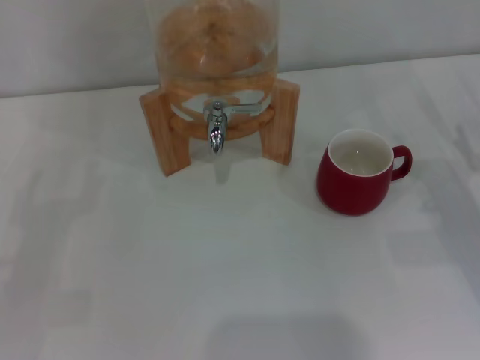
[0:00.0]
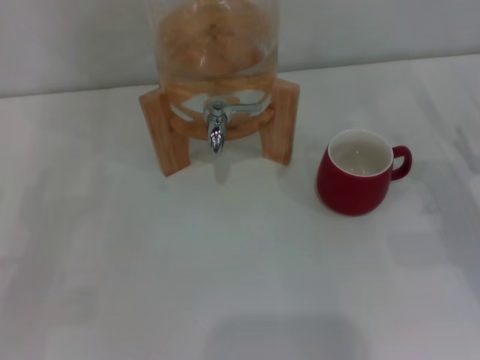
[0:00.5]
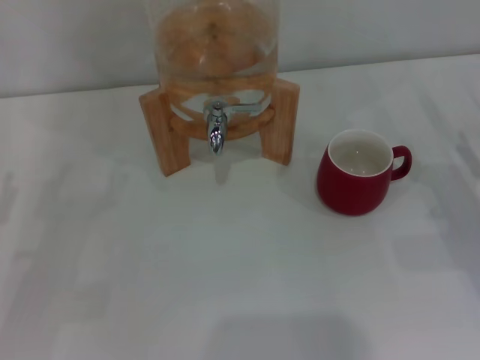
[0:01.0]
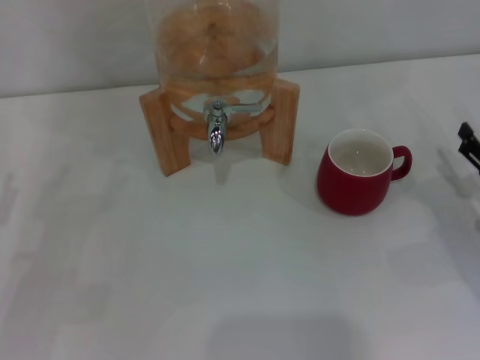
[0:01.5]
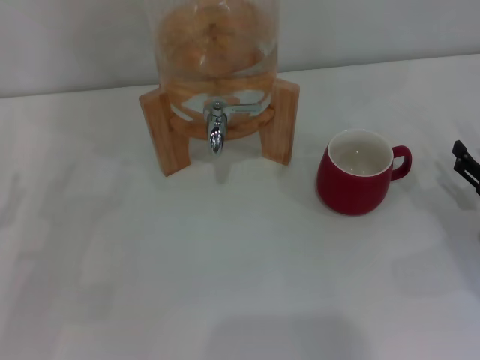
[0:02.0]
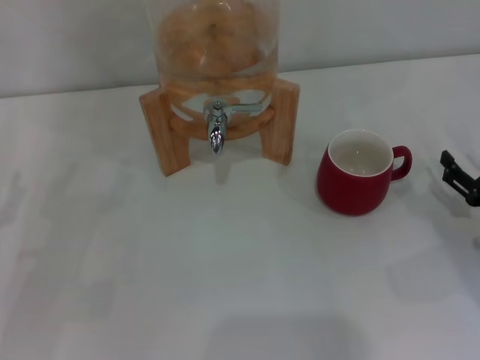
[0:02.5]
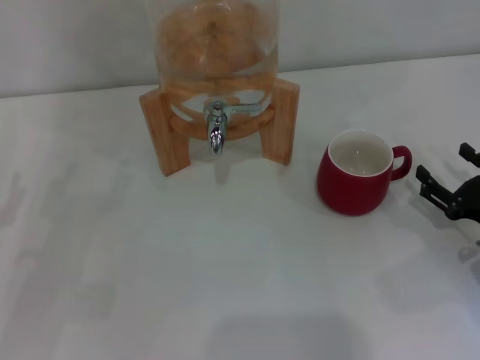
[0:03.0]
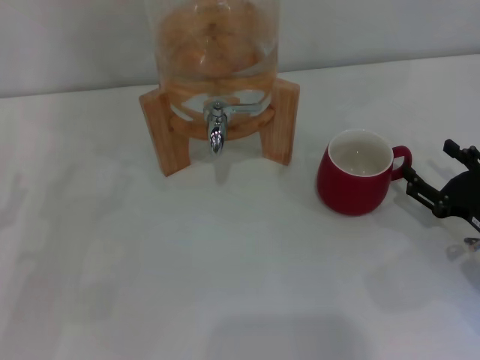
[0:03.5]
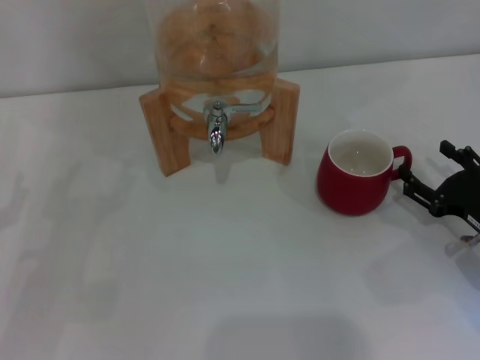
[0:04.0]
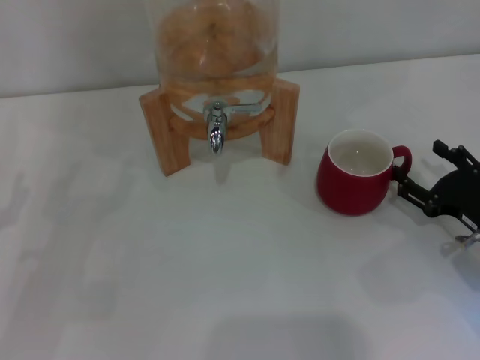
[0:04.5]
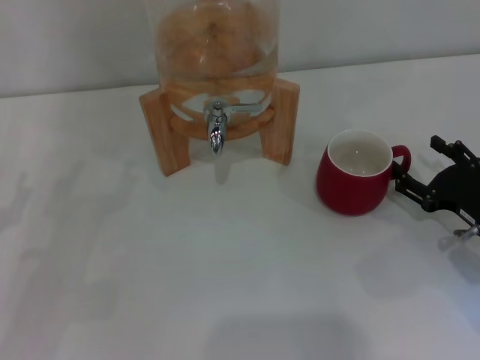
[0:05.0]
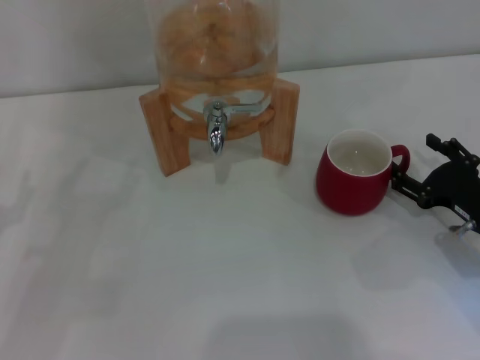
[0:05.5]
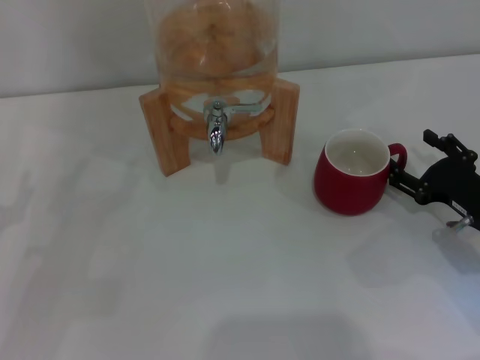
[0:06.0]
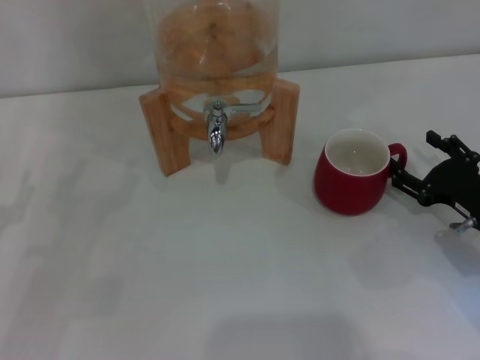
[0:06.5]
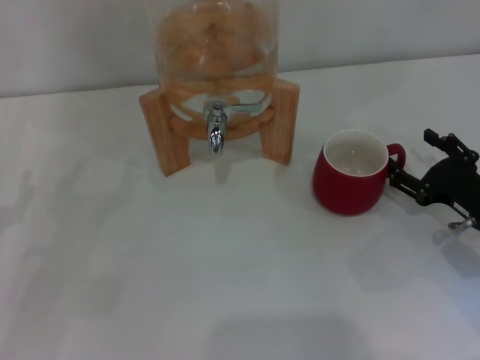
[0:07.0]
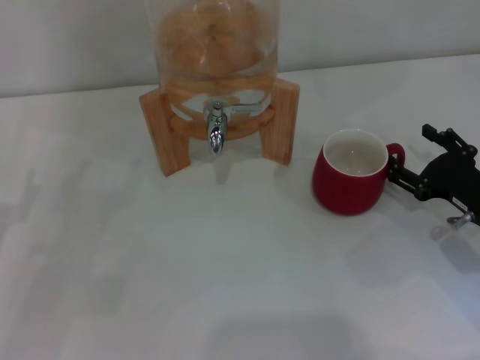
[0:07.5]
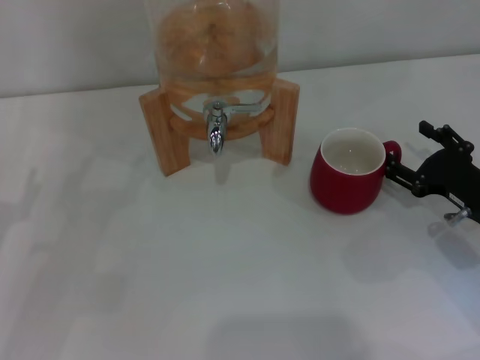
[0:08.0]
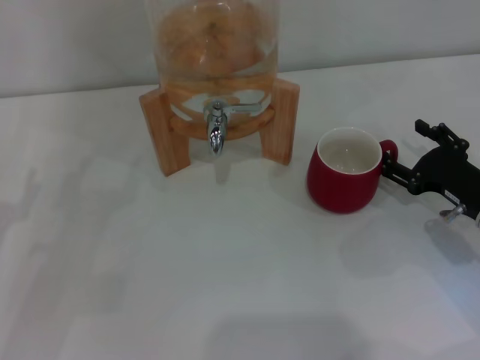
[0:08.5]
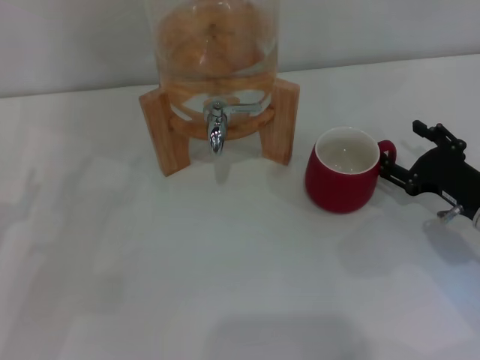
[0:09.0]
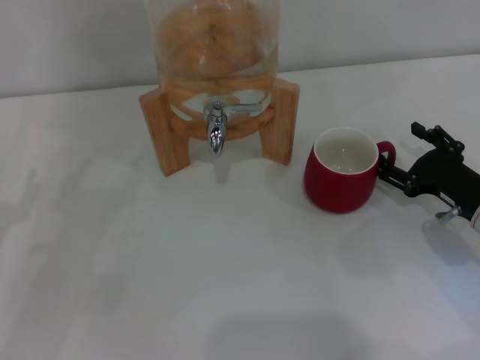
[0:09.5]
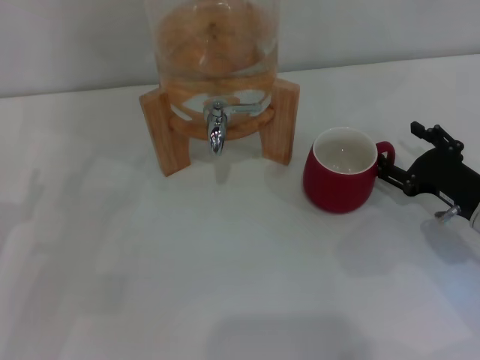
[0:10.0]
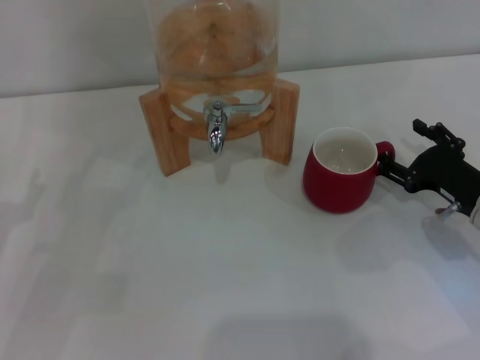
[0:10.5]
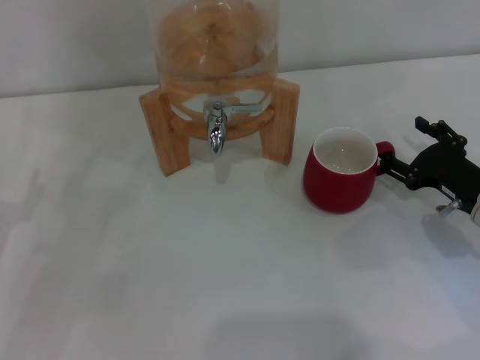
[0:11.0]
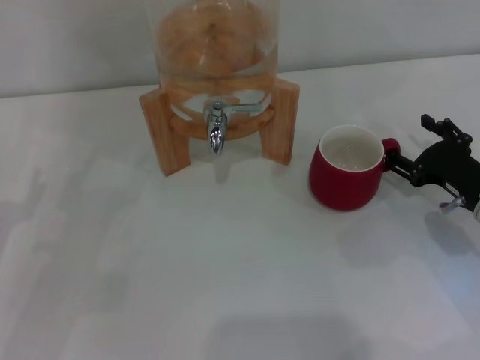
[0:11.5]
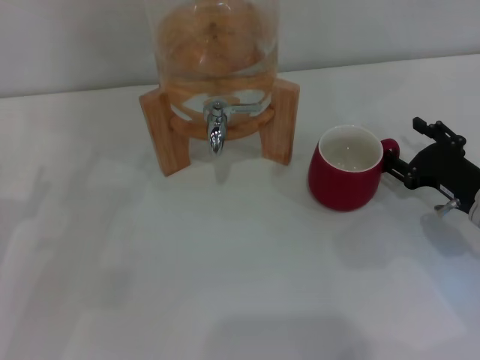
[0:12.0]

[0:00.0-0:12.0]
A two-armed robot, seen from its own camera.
Task of the whole recording: the right gripper pick up the red cup and place it horizontally under the faucet, the left gripper turn on the faucet to fill the cup, and then turn off the faucet.
0:02.0 to 0:06.0: The grippers stay close to where they were, moving slightly.
0:06.0 to 0:08.0: Neither gripper changes place.
0:08.0 to 0:10.0: The two grippers keep their place.
0:10.0 to 0:12.0: Both grippers stay about where they are.

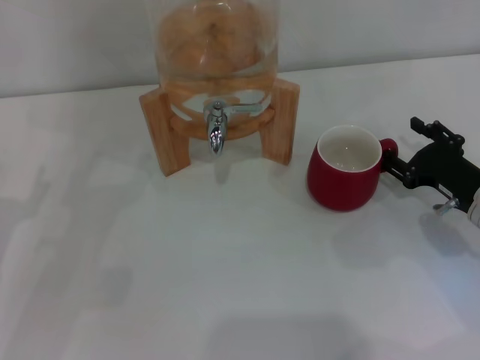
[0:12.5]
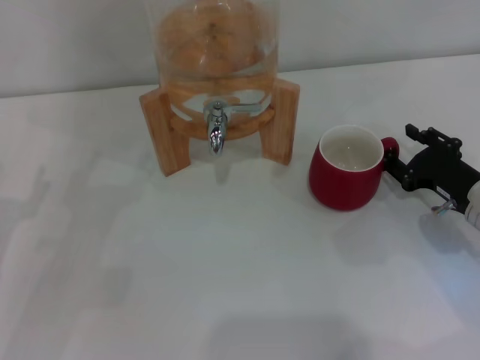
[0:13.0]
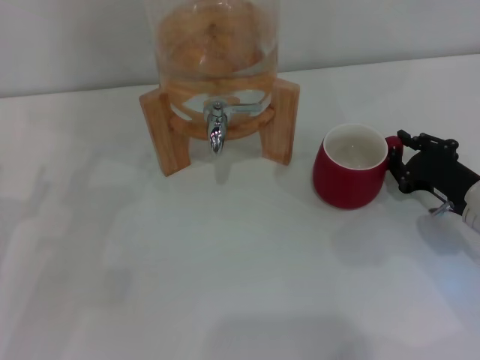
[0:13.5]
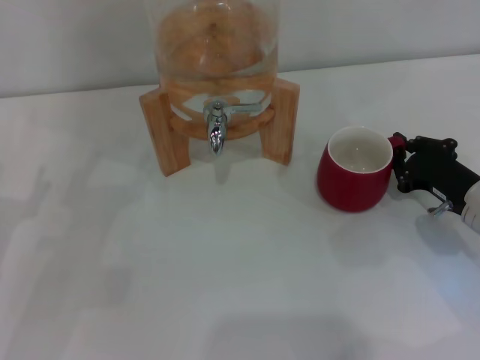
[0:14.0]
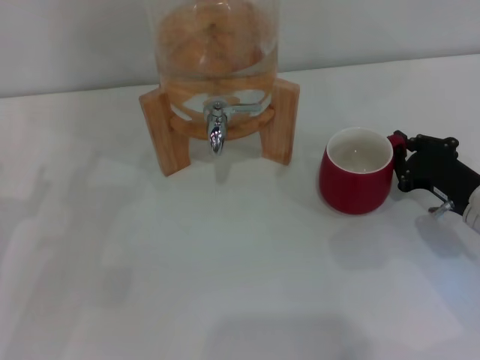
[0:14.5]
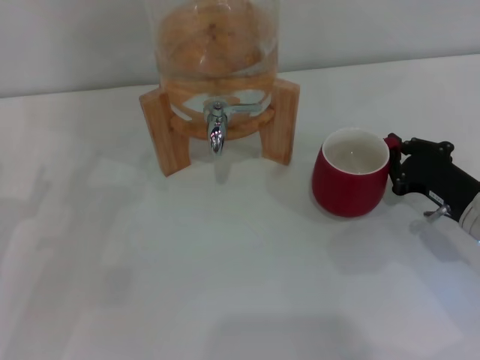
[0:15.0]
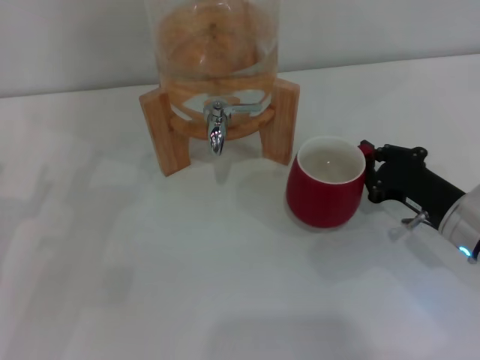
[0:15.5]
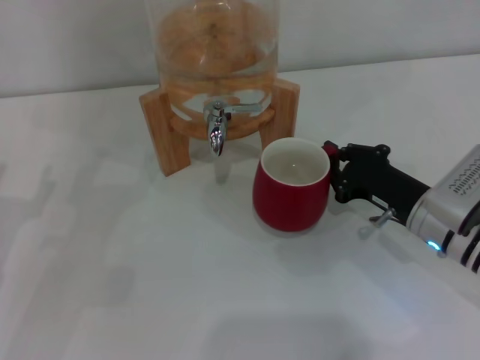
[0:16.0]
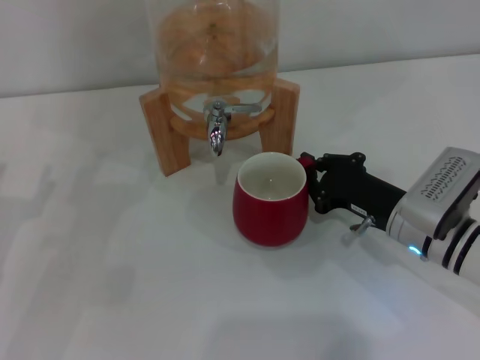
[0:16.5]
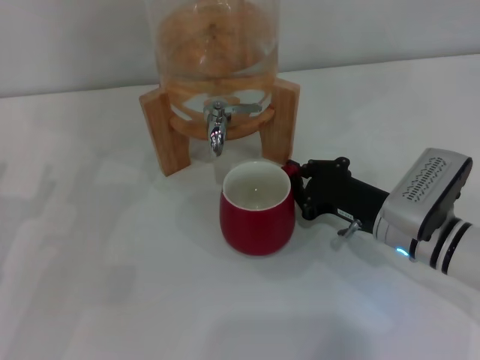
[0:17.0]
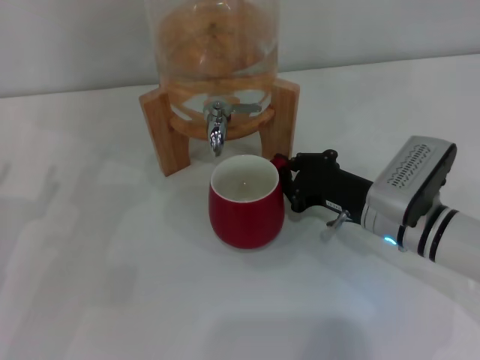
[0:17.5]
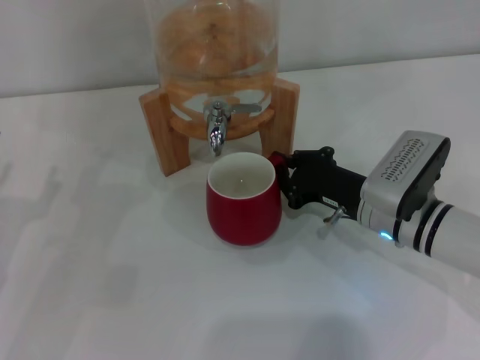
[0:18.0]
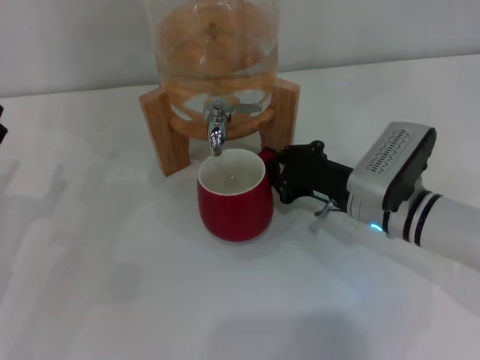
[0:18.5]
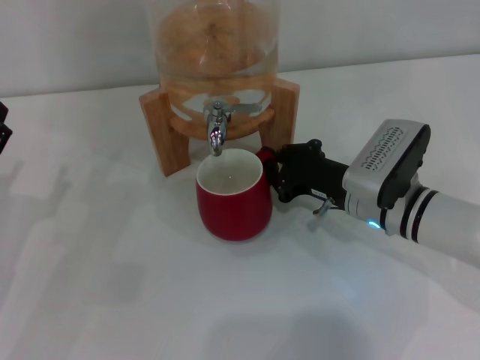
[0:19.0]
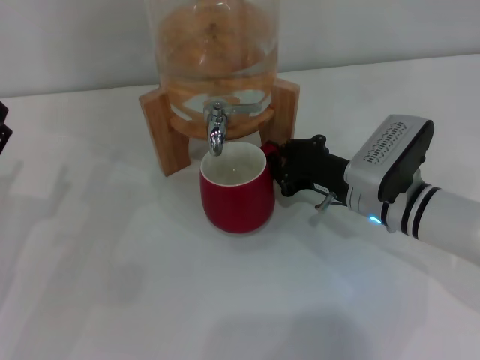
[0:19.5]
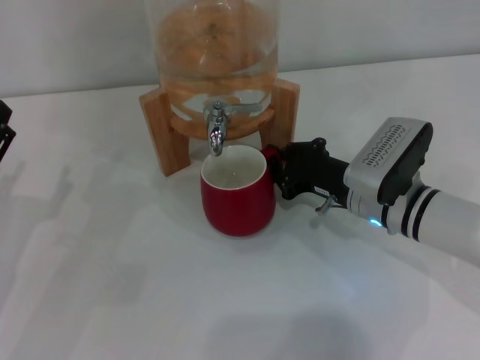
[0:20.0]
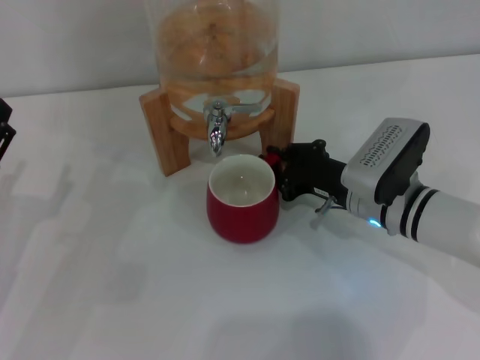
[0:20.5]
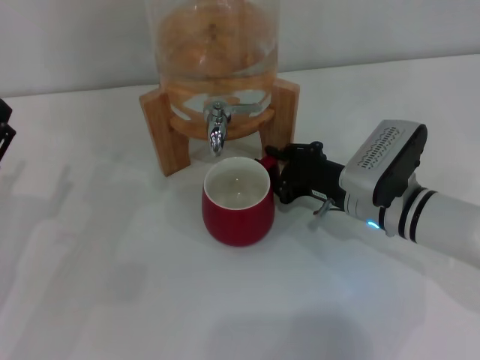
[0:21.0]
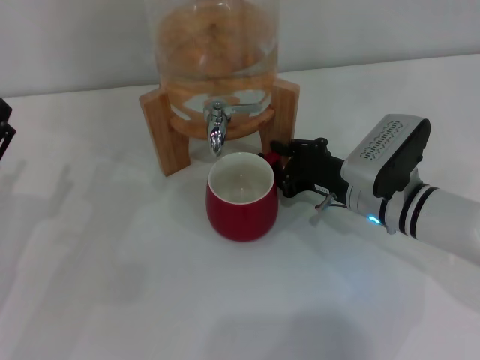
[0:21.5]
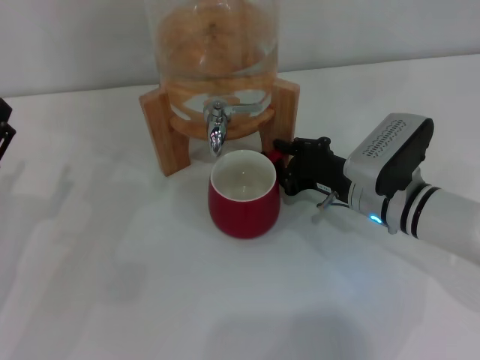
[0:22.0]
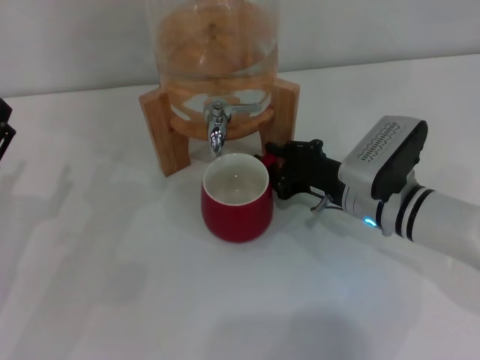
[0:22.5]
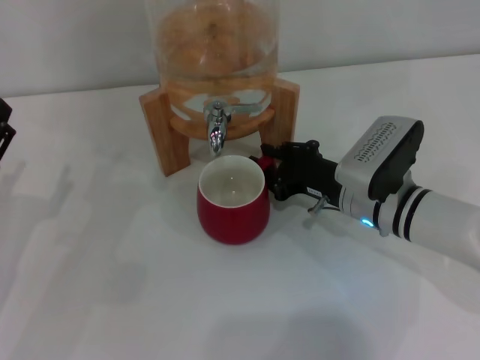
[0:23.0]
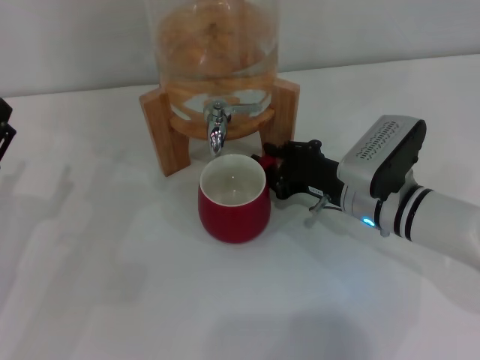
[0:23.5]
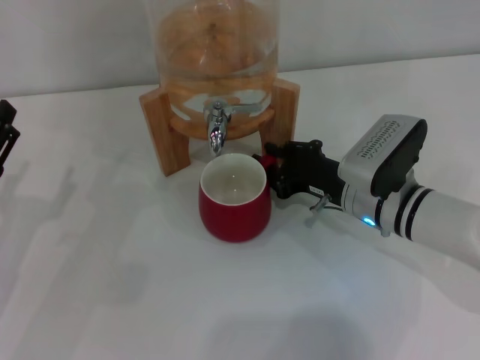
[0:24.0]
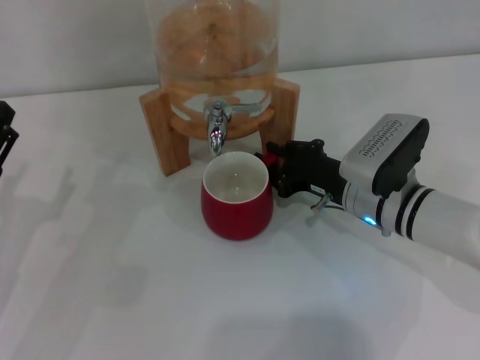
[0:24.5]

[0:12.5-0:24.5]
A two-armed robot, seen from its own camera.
Task of the whole recording: the right gripper pick up the red cup and place it horizontally under the faucet, the left gripper turn on the faucet to fill the cup, and then turn off the faucet.
0:12.5 to 0:14.5: The right gripper closes up.
0:14.5 to 0:16.5: The right gripper moves to the left, some 10 cm.
0:16.5 to 0:18.5: There are only small adjustments of the grippers.
0:18.5 to 0:20.5: Both grippers stay put.
0:20.5 to 0:24.5: Both grippers stay about where they are.

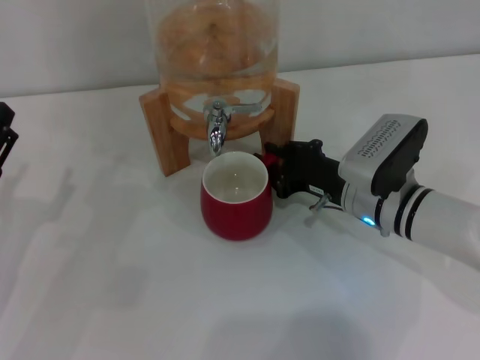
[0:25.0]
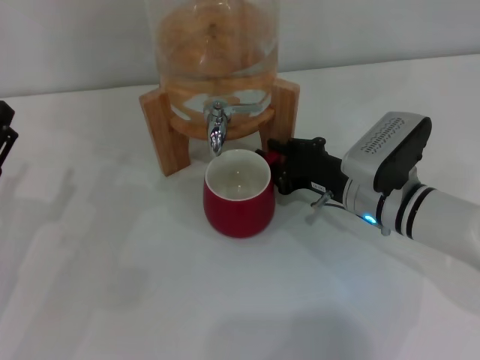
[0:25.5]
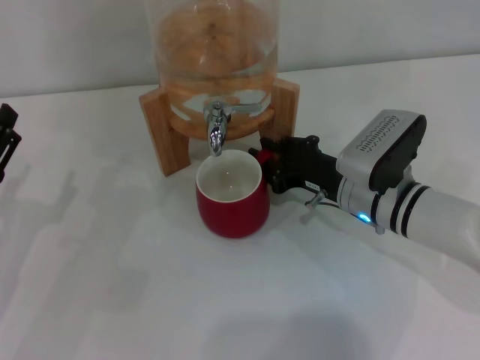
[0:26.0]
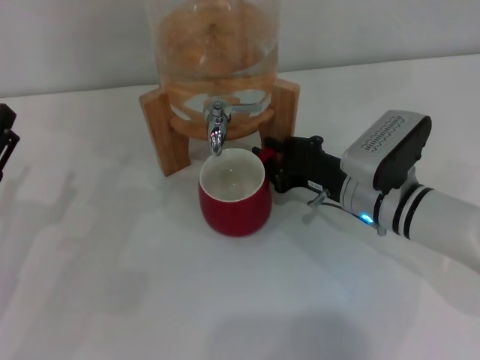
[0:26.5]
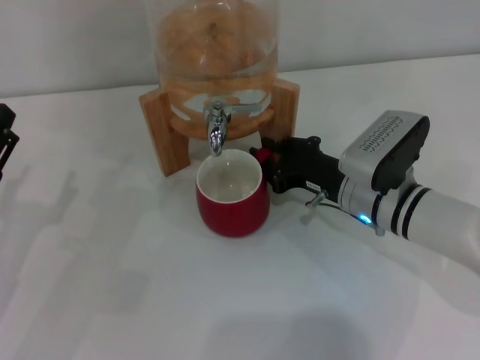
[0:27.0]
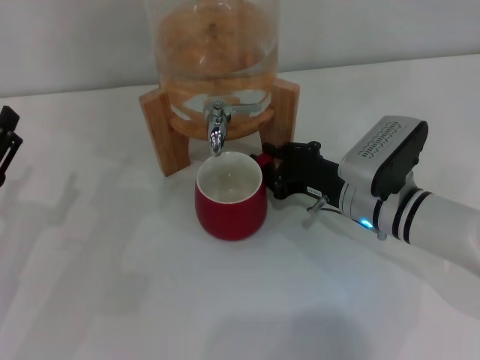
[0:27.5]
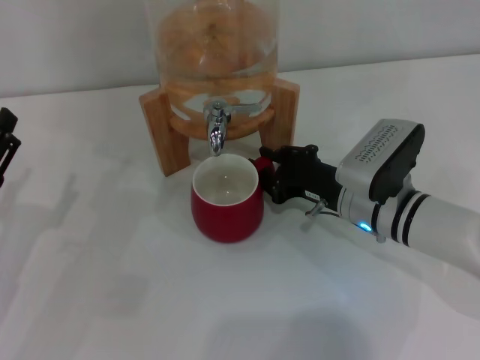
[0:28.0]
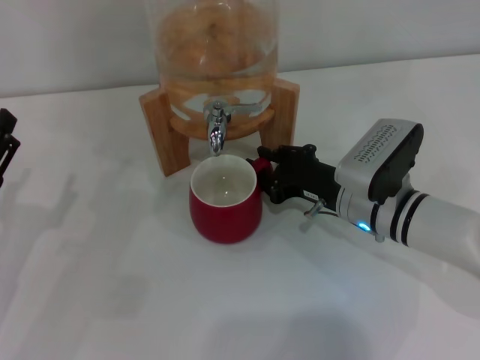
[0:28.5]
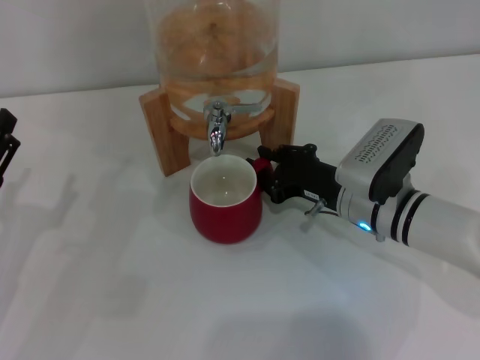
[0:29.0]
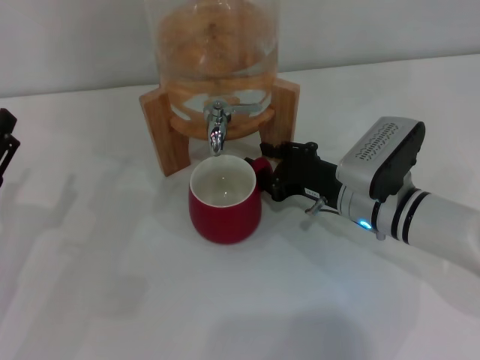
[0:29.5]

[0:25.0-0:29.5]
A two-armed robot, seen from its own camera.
Task of the whole recording: the right gripper pick up the red cup and place it horizontally under the faucet, the left gripper turn on the faucet to fill the cup, and then turn off the faucet.
0:25.0 to 0:29.5: Both grippers stay put.
